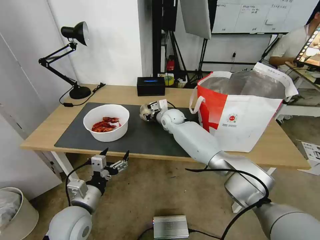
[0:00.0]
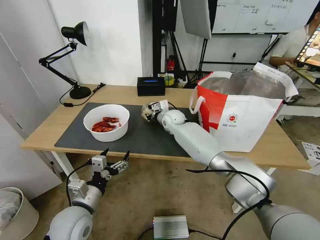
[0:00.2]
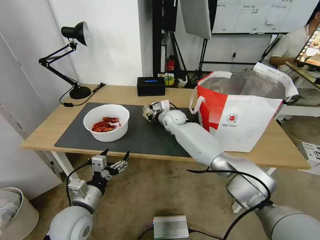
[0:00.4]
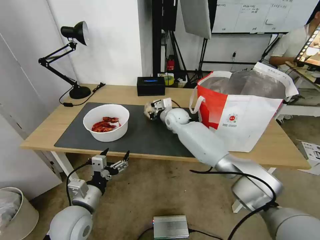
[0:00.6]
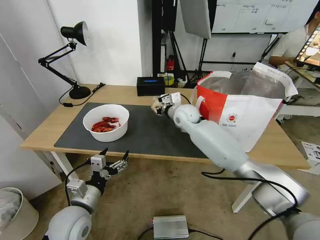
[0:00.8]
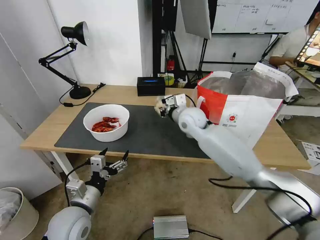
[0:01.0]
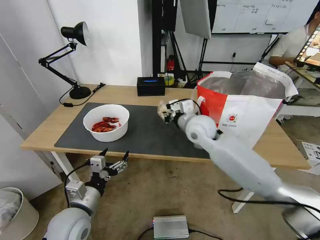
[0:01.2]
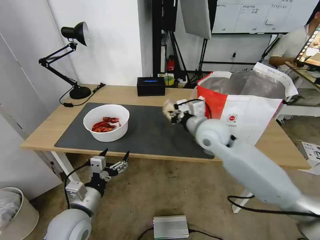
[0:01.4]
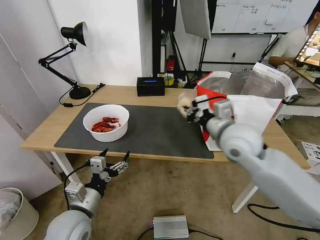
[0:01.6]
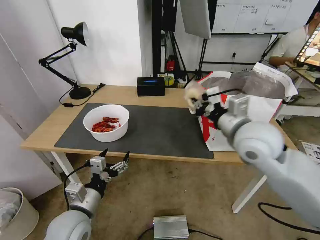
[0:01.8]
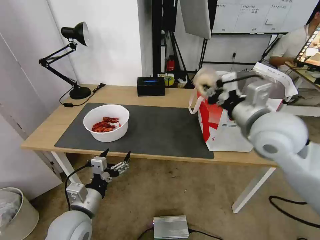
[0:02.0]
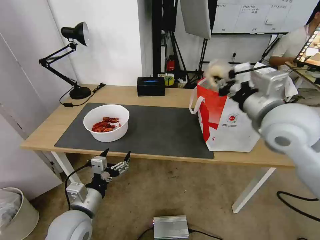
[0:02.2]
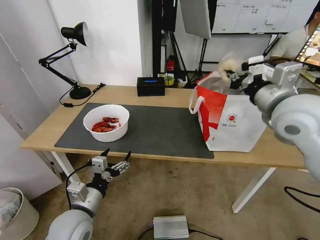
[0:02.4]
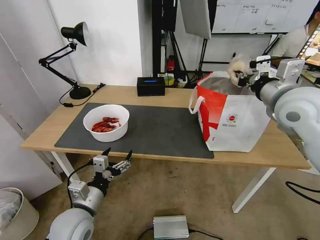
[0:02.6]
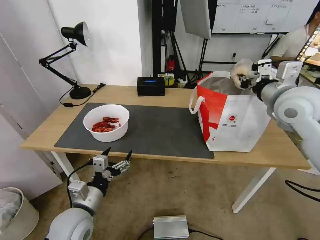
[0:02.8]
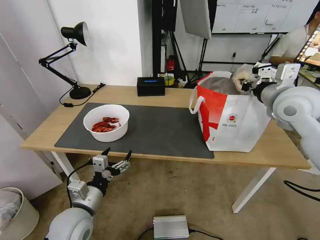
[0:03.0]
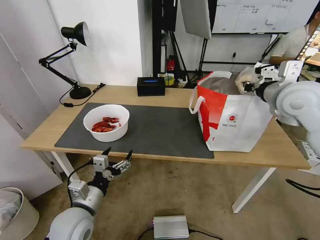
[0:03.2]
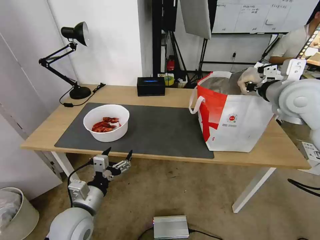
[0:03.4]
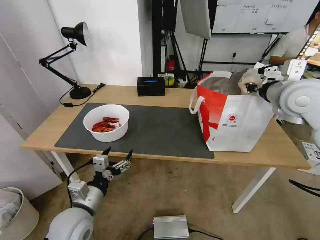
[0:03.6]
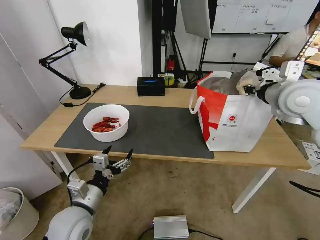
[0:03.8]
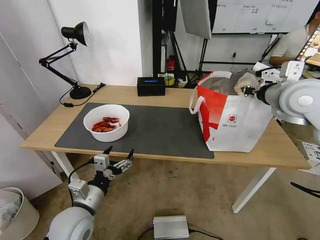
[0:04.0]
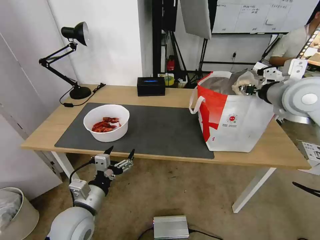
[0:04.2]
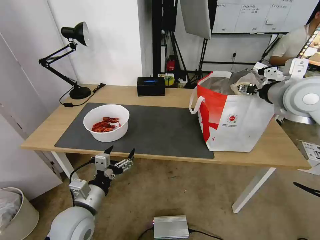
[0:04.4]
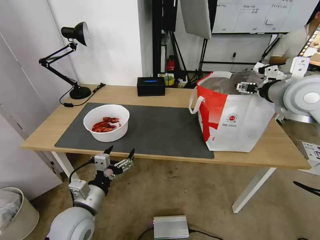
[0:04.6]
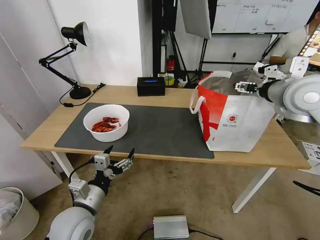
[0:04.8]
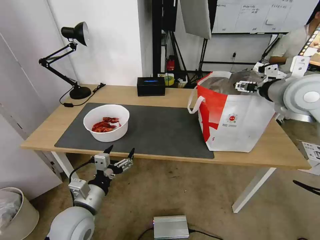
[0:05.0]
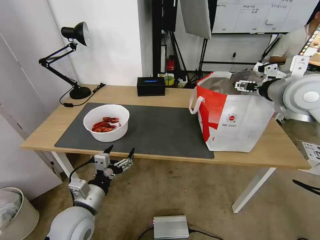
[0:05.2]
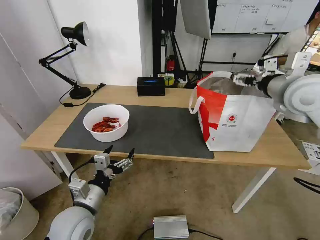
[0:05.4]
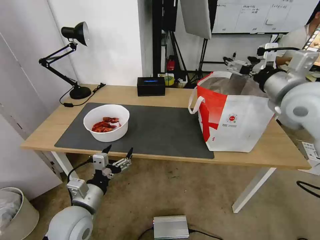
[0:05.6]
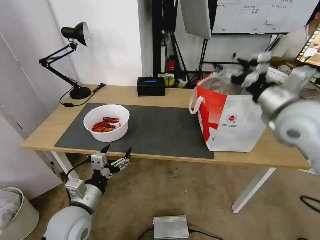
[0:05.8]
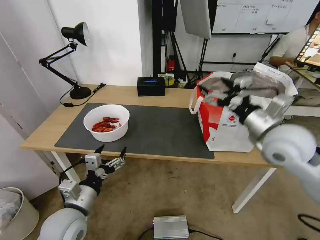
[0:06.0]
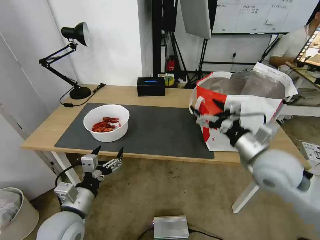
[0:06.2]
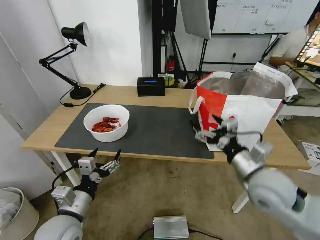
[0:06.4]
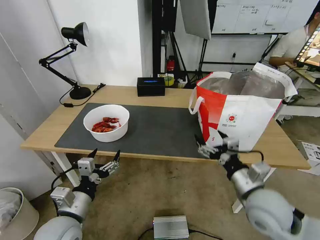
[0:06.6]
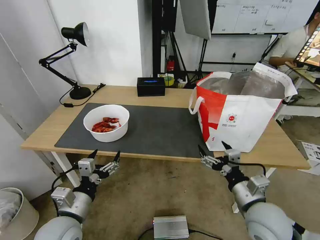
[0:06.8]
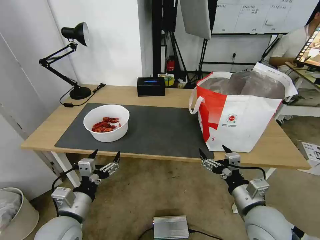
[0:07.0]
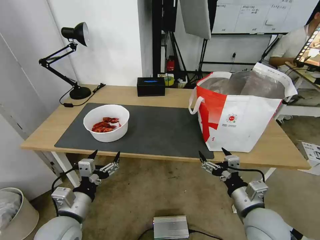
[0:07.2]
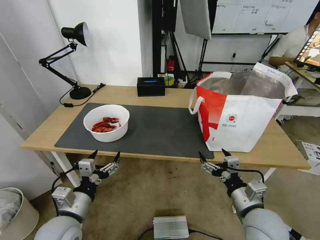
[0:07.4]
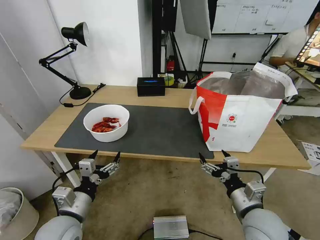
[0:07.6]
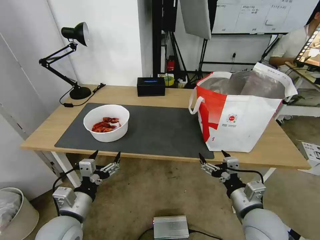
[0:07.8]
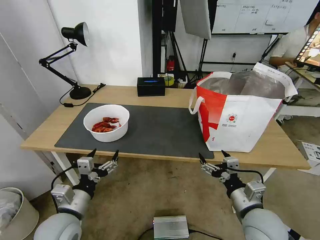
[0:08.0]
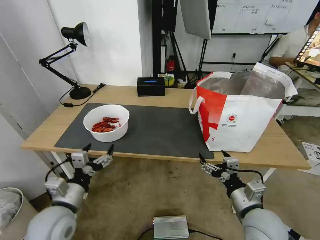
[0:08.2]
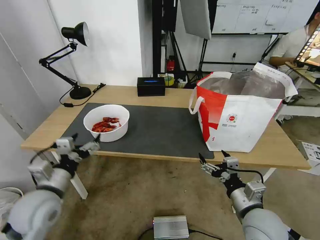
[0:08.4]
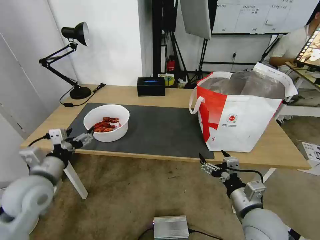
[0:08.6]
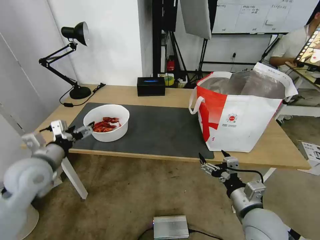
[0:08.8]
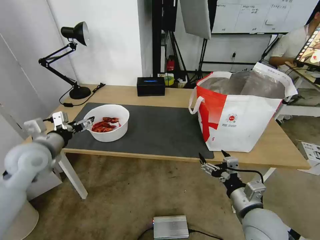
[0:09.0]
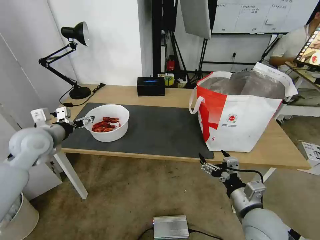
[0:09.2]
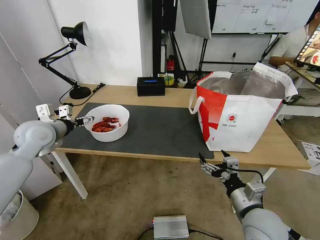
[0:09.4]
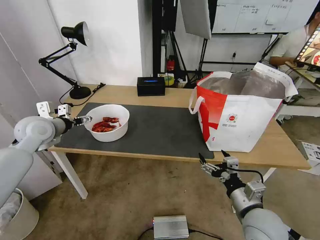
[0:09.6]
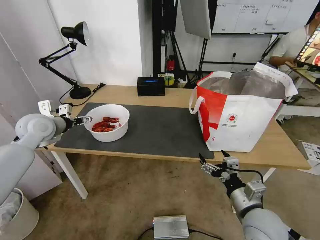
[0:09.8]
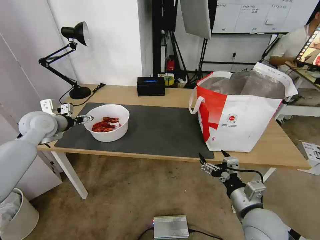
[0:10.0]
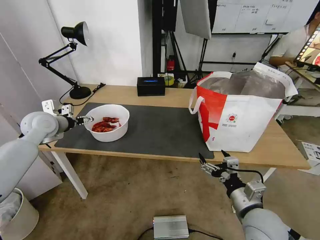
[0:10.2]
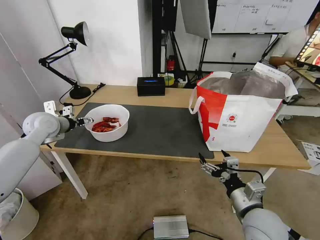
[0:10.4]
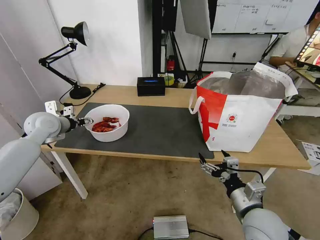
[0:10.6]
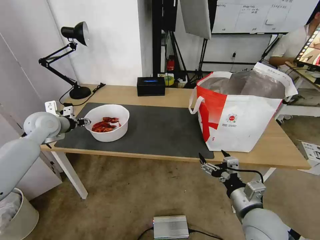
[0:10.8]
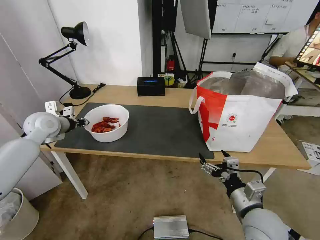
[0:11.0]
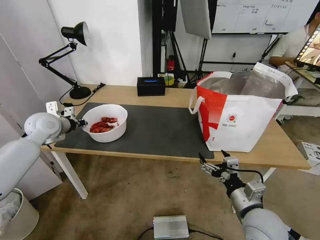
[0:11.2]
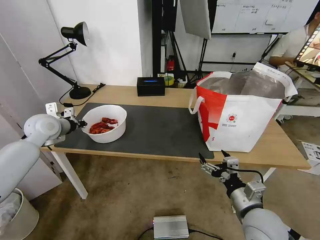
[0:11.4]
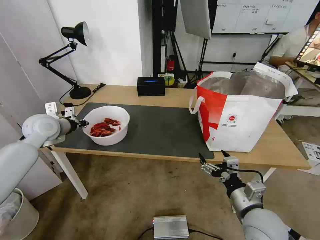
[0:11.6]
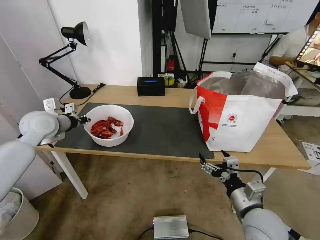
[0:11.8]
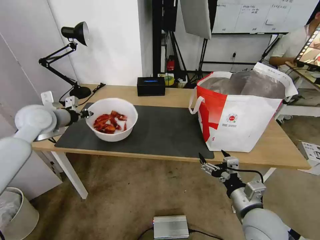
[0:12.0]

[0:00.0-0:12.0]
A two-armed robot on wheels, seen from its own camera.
Task of the whole recording: Pick up the trash from the table and place it into the takeout bag.
0:00.0 to 0:01.6: The right gripper shifts some 30 cm backward, to the right and upward.
0:01.6 to 0:03.0: The right gripper shifts roughly 15 cm to the right and upward.
0:03.0 to 0:04.4: The right gripper opens.
0:04.4 to 0:06.0: The right gripper is displaced downward and backward by about 10 cm, and opens up.
0:06.0 to 0:07.6: The right gripper shifts about 25 cm downward and backward.
0:07.6 to 0:09.0: The left gripper is displaced forward, upward and to the left by approximately 25 cm.
0:09.0 to 0:10.4: The left gripper goes about 10 cm forward.
0:10.4 to 0:12.0: The left gripper changes place by some 5 cm, and closes up.

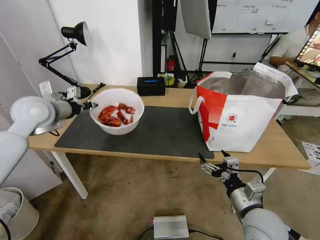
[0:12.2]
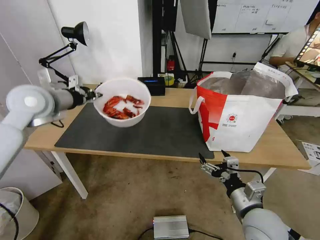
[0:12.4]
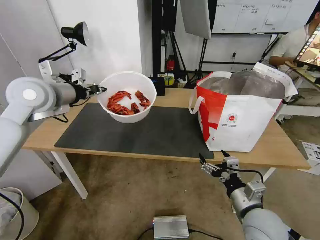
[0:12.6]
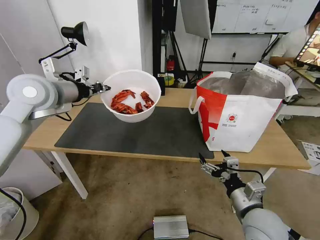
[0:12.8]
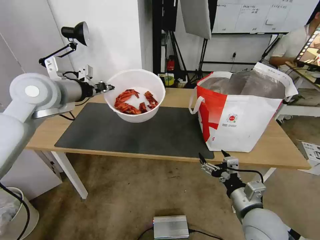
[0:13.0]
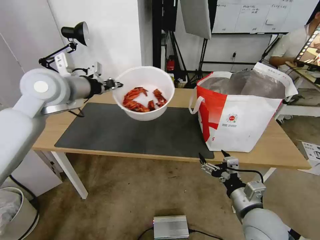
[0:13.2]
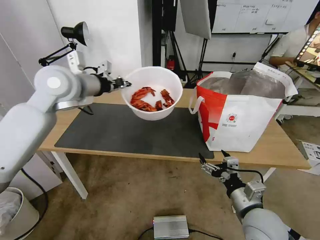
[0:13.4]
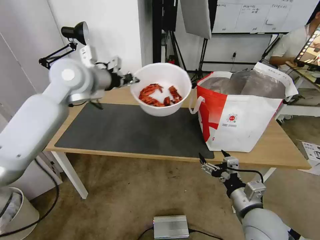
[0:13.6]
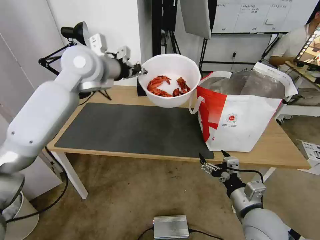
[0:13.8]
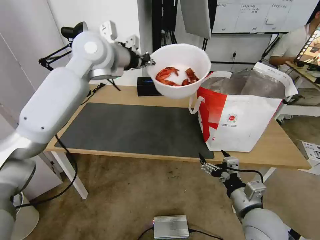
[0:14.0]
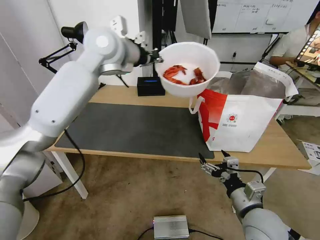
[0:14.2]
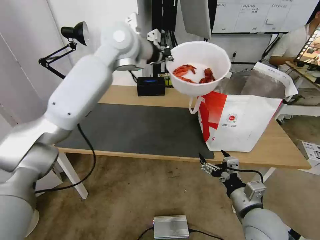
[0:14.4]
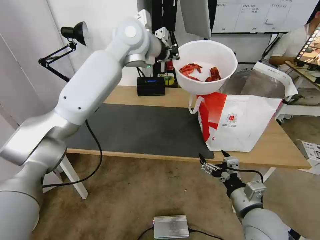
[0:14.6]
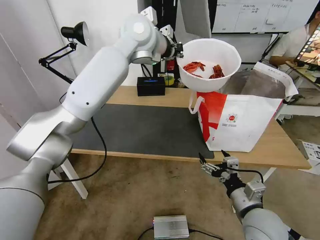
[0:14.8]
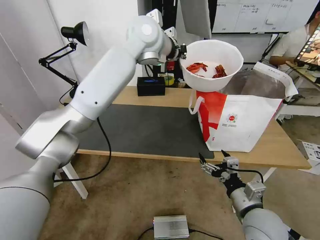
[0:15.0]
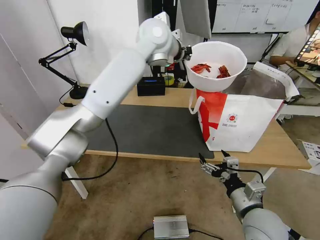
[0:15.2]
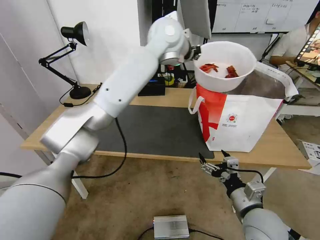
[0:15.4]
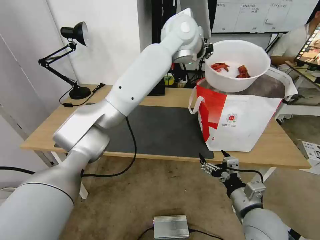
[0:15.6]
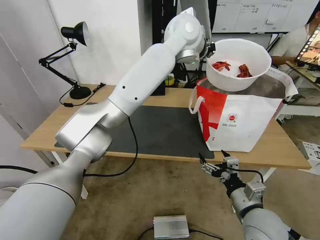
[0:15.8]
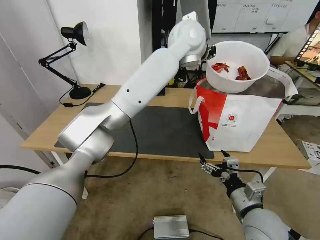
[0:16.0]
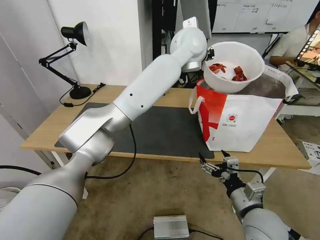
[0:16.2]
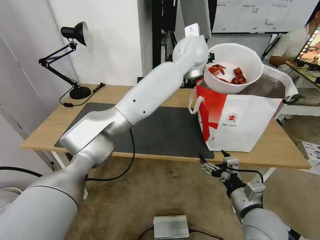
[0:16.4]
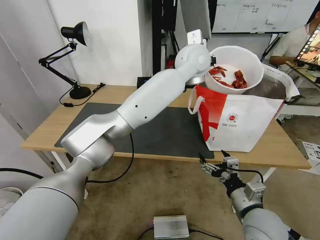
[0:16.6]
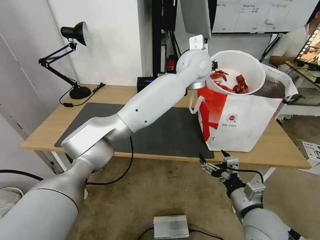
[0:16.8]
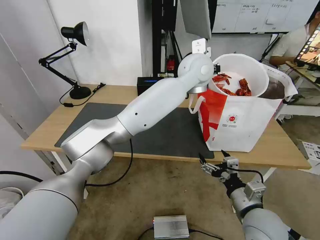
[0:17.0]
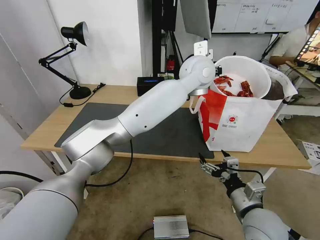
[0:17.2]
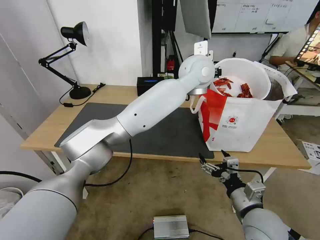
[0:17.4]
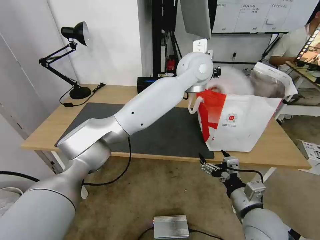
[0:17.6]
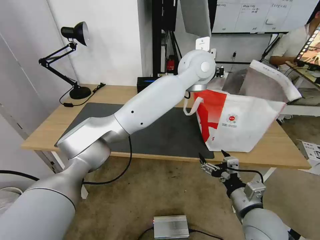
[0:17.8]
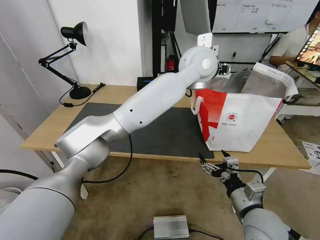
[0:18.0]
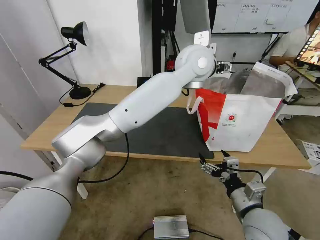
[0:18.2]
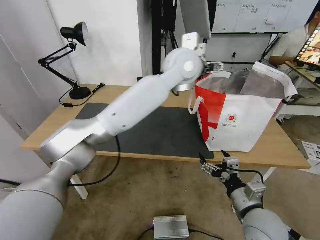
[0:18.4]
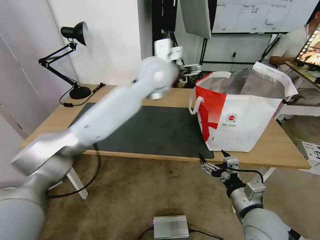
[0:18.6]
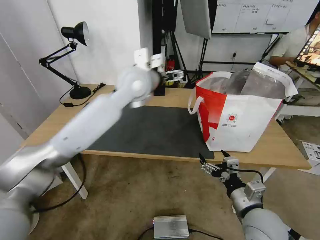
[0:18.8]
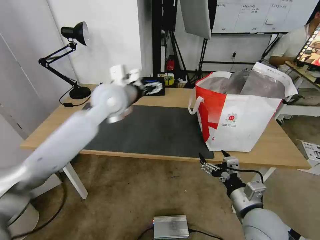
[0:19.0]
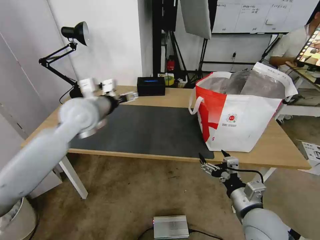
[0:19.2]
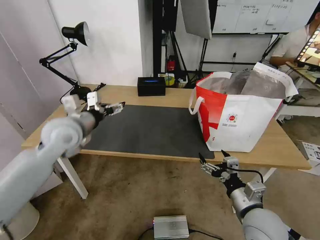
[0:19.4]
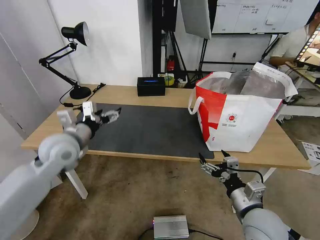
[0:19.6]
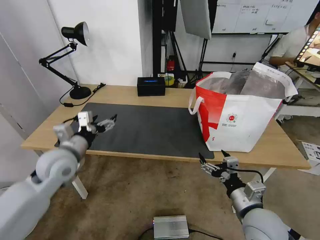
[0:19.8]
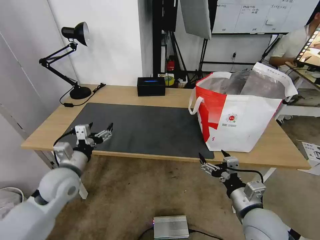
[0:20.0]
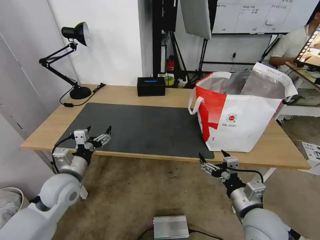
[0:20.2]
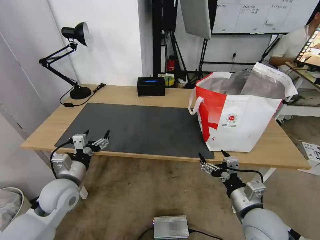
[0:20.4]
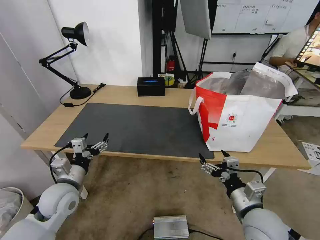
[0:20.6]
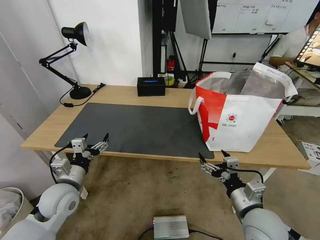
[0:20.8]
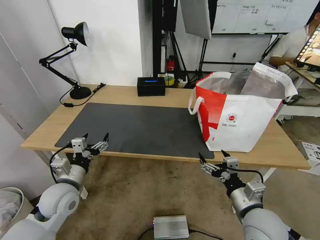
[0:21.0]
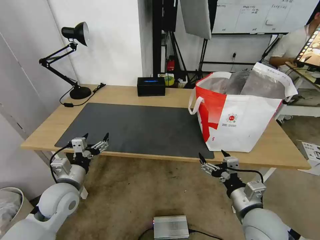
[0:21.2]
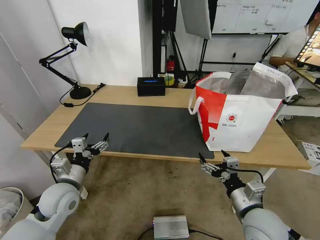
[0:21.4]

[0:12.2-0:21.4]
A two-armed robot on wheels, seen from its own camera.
Task of the whole recording: Pick up the trash from the table and place it into the takeout bag.
0:12.2 to 0:13.8: The left gripper moves to the right and upward, roughly 20 cm.
0:13.8 to 0:15.2: The left gripper shifts some 20 cm to the right and forward.
0:15.2 to 0:16.8: The left gripper moves to the right and downward, approximately 15 cm.
0:16.8 to 0:18.4: The left gripper changes place by some 5 cm, and opens.
0:18.4 to 0:19.8: The left gripper travels to the left, downward and backward by some 40 cm.
0:19.8 to 0:21.4: The left gripper is displaced downward by approximately 5 cm.

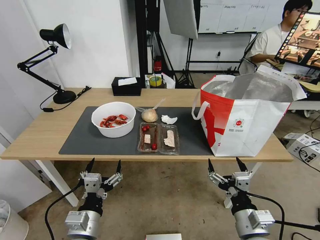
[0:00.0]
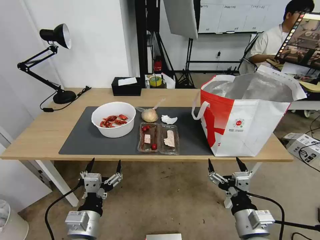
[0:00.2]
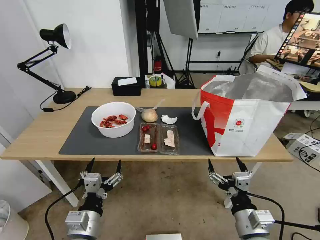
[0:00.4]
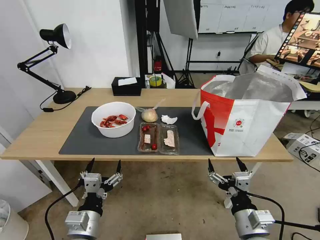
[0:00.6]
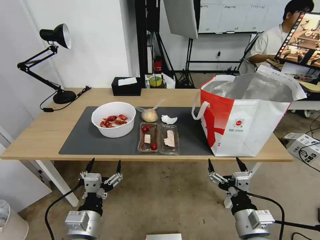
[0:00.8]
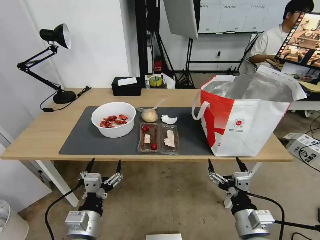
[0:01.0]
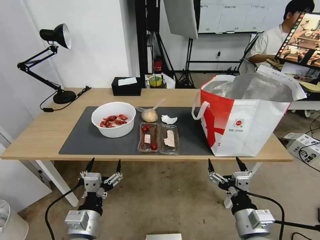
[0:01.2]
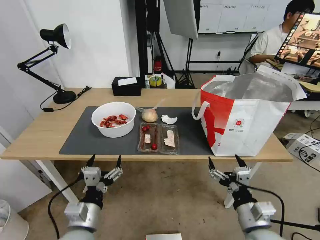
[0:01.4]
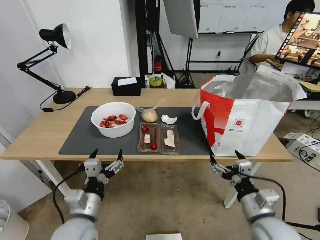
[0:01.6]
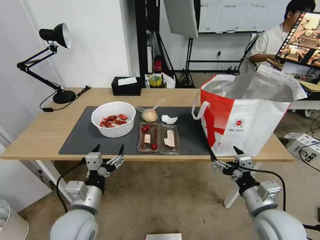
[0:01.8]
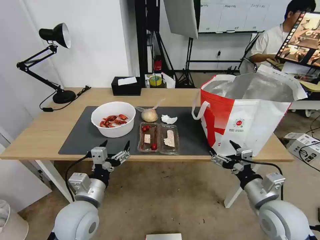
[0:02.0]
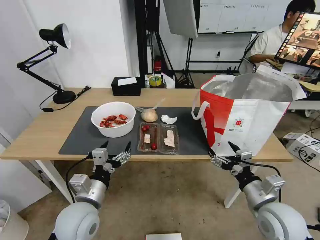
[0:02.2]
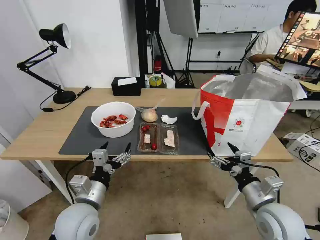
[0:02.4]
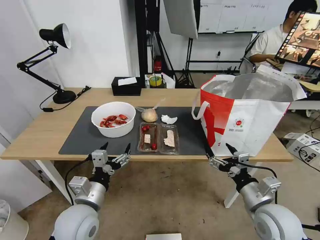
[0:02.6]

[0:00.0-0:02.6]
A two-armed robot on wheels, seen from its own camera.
Task of the whole recording: Pick up the trash from the table and place it into the takeout bag.
0:01.2 to 0:02.6: The right gripper goes about 10 cm forward and to the right; the left gripper goes roughly 5 cm forward.
